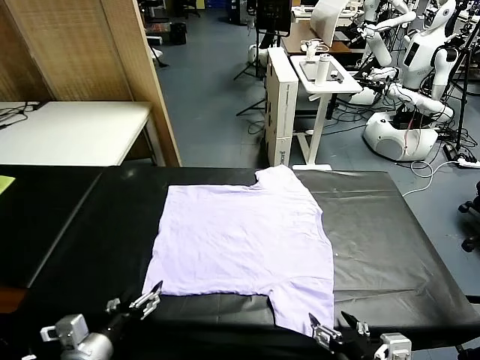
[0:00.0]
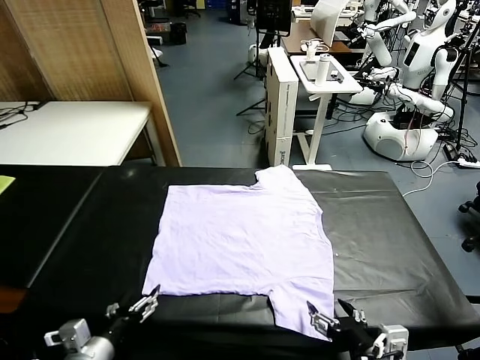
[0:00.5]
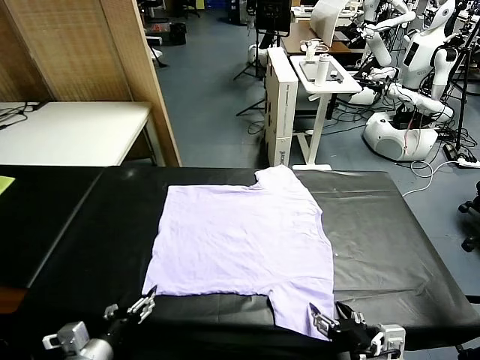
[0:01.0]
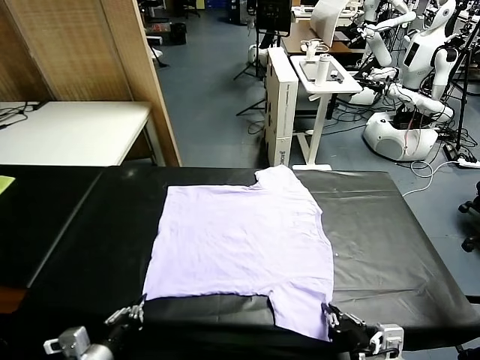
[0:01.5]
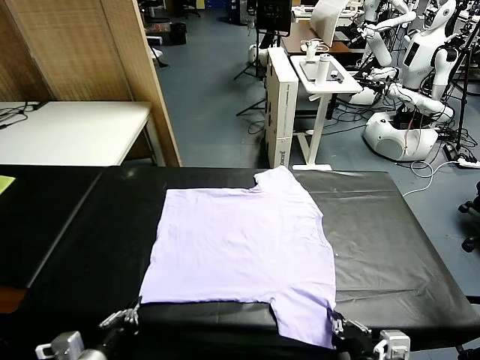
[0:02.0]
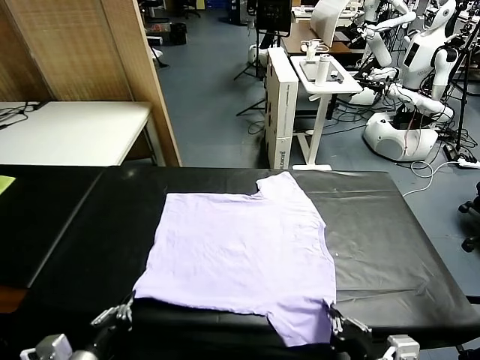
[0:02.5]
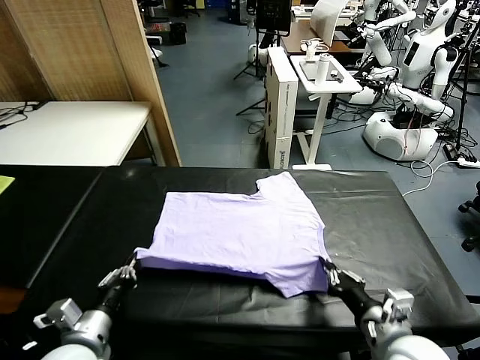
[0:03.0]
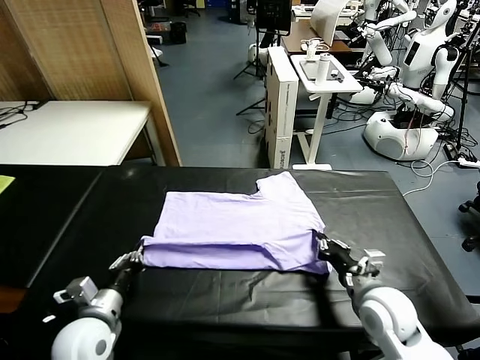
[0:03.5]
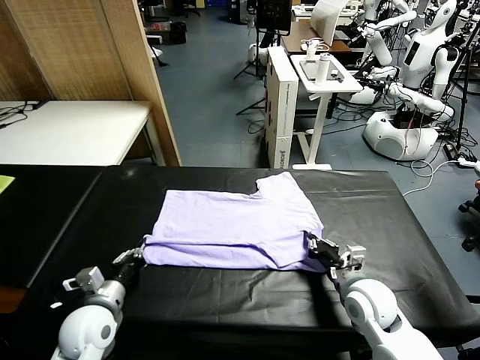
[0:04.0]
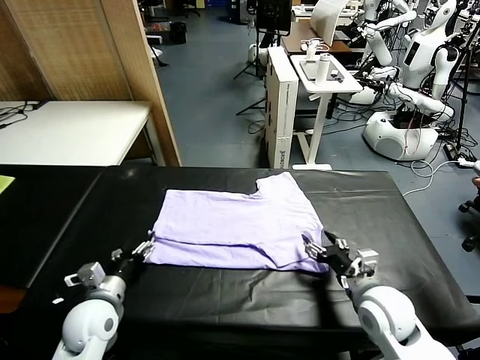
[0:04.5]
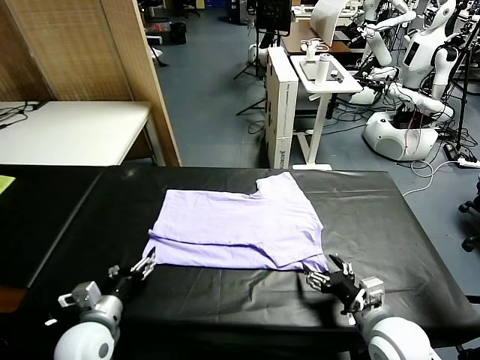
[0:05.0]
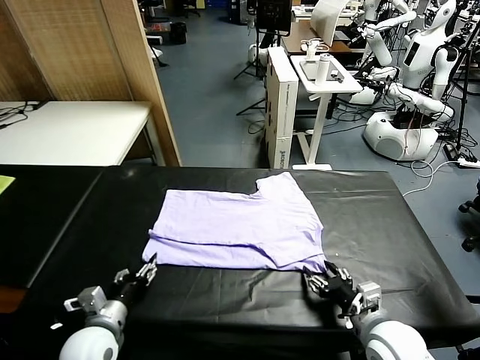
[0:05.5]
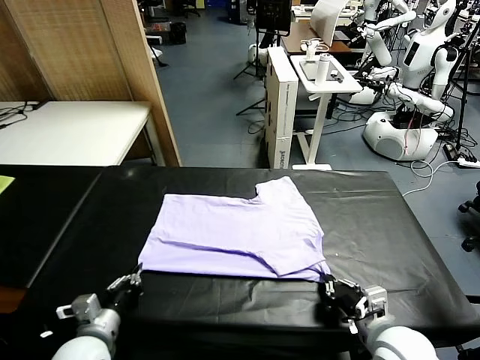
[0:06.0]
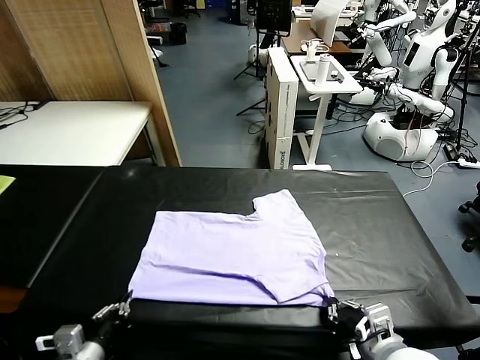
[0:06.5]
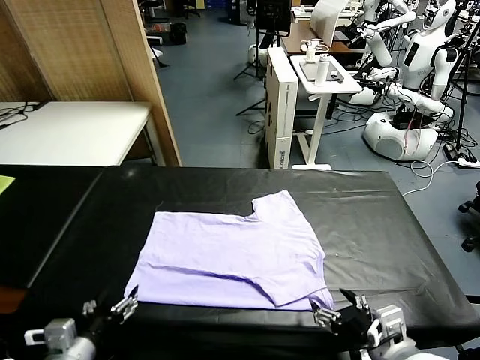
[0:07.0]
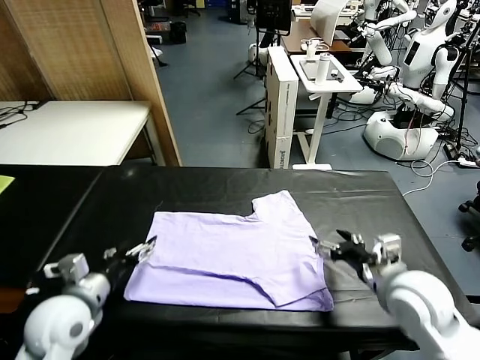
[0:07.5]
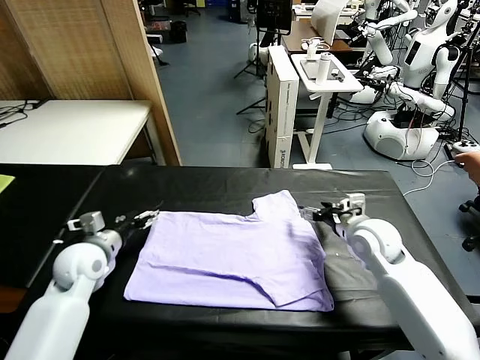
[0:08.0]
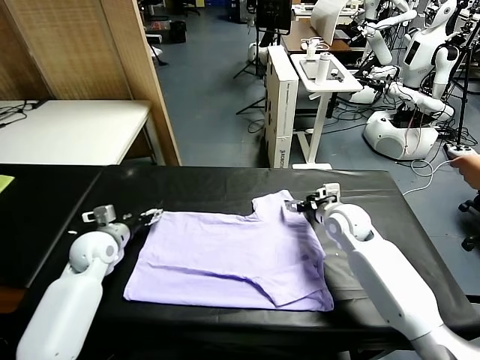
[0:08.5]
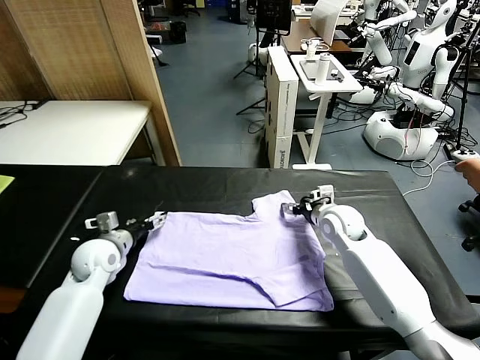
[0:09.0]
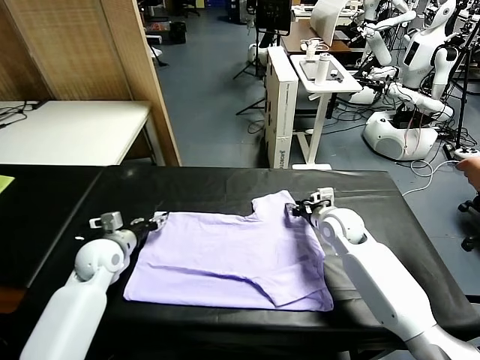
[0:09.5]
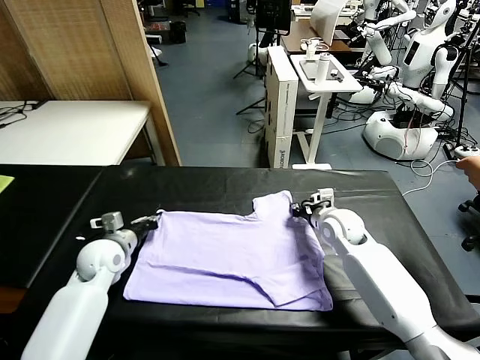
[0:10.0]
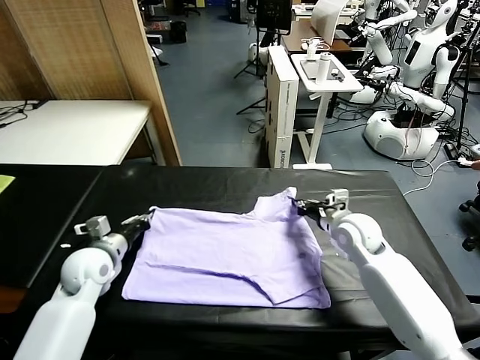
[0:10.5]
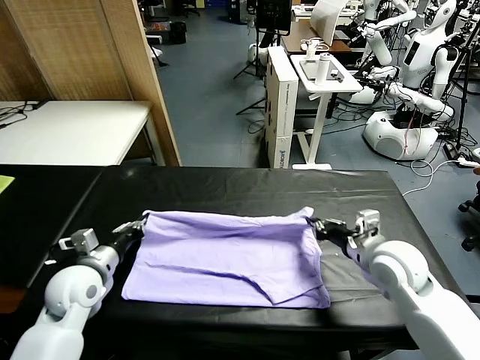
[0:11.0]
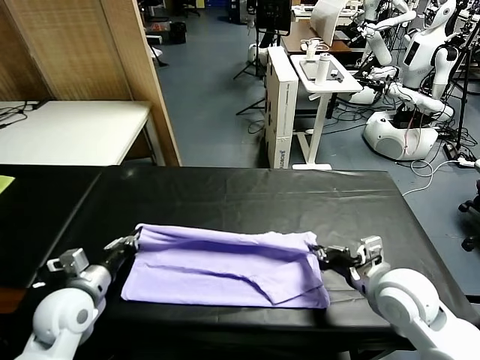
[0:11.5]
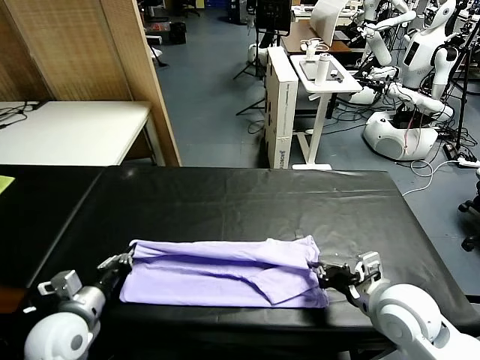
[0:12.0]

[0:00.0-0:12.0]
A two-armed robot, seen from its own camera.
Task of the whole recording: fold and organize the clothes.
Step, 0:00.0 to 0:02.0: use both grippers simultaneously to clamp the lower edge of the clothing fabric.
Step, 0:02.5 to 0:04.0: use both grippers to drag the lower edge of the fabric forward and fold it over the upper edge.
Step, 0:05.0 to 0:06.5: Drag the clothes downward with both gripper.
Step, 0:07.0 to 0:10.0: use both grippers simultaneously to clamp the upper edge of the clothing fabric.
0:02.0 to 0:04.0: Both grippers move forward, approximately 15 cm. The right gripper opens its fingers.
0:04.0 to 0:06.0: The left gripper travels backward by approximately 5 cm, and opens, then closes once more; the right gripper moves backward and upward, roughly 15 cm, and closes its fingers.
0:06.0 to 0:08.0: The grippers both shift forward by approximately 25 cm. The left gripper opens up; the right gripper opens.
0:08.0 to 0:10.0: The left gripper closes up. Meanwhile the right gripper closes up.
0:10.0 to 0:12.0: Both grippers travel together backward, approximately 20 cm.

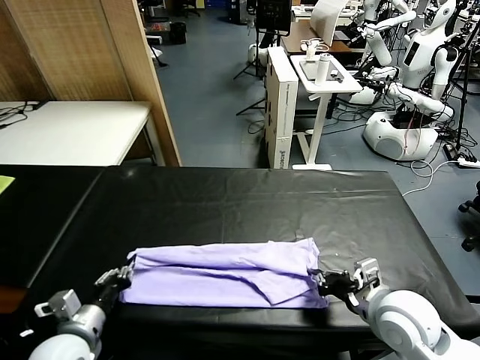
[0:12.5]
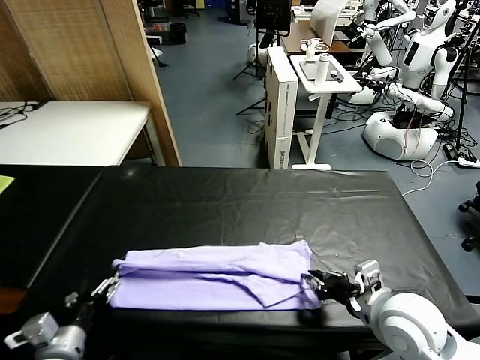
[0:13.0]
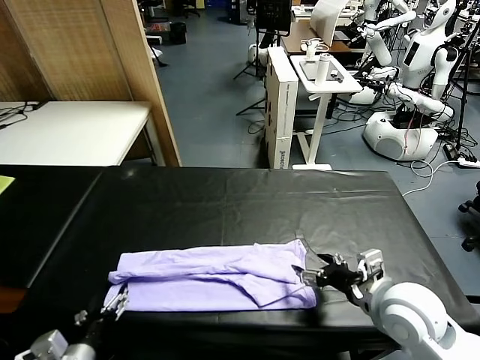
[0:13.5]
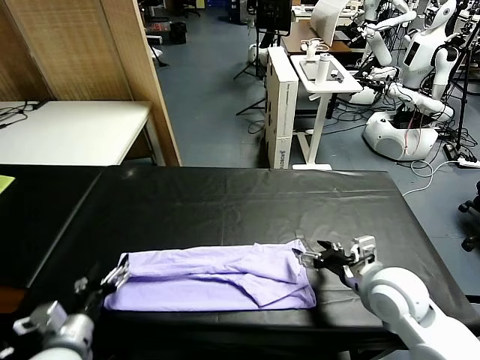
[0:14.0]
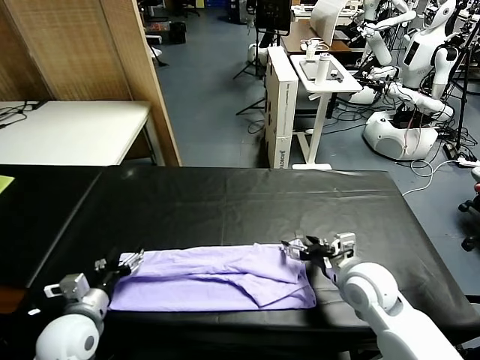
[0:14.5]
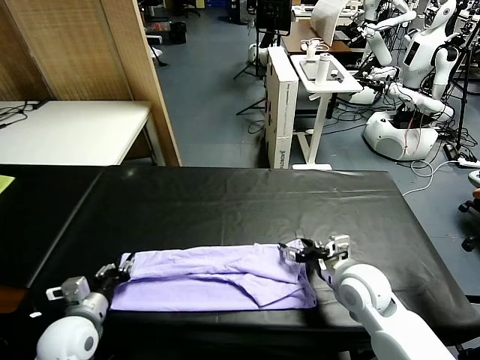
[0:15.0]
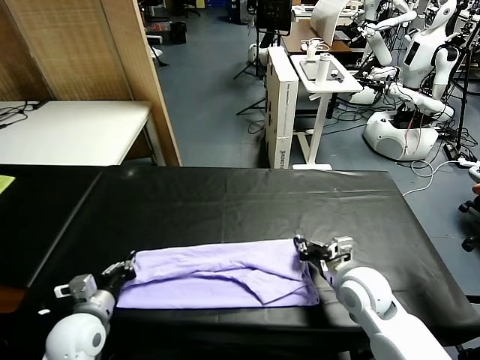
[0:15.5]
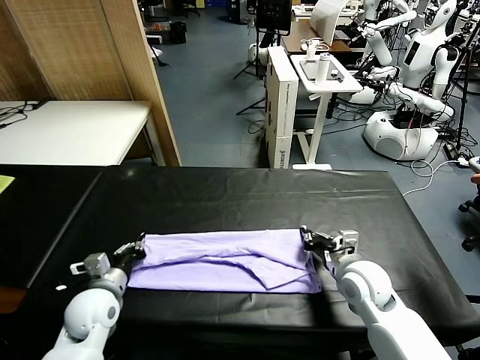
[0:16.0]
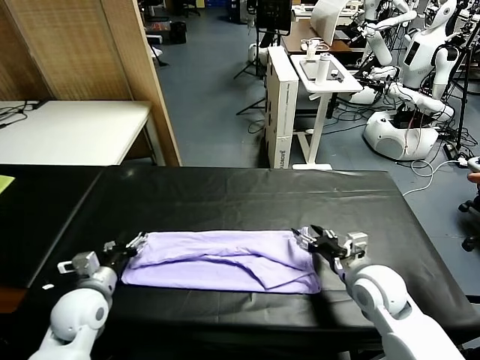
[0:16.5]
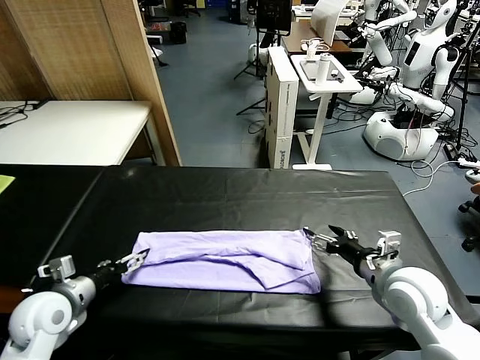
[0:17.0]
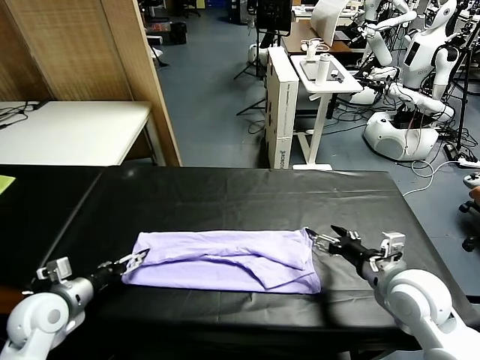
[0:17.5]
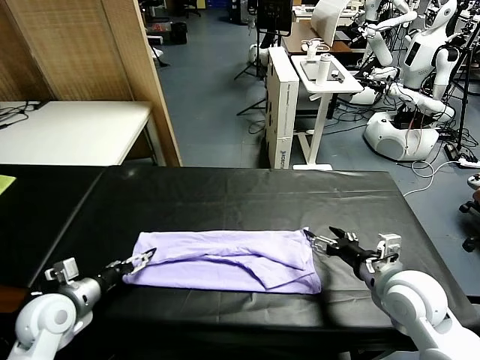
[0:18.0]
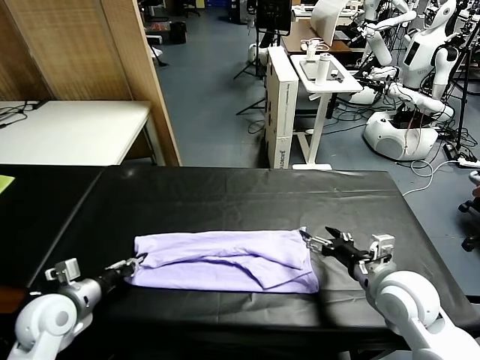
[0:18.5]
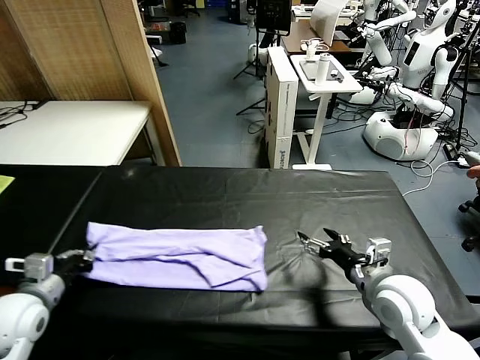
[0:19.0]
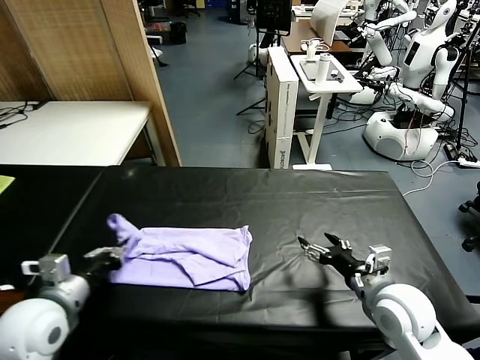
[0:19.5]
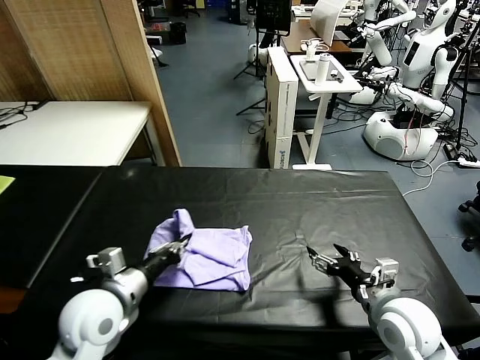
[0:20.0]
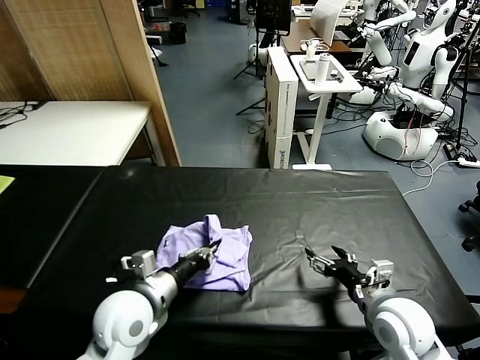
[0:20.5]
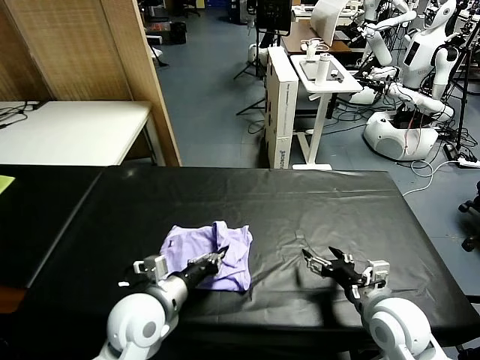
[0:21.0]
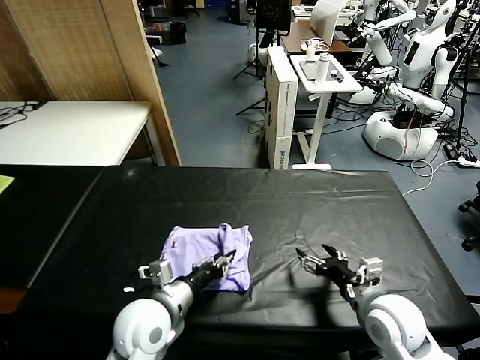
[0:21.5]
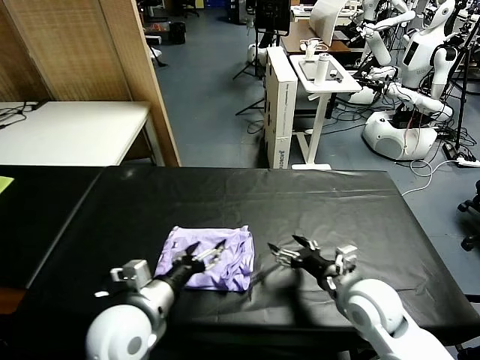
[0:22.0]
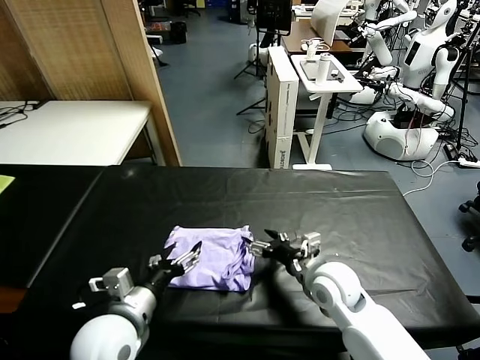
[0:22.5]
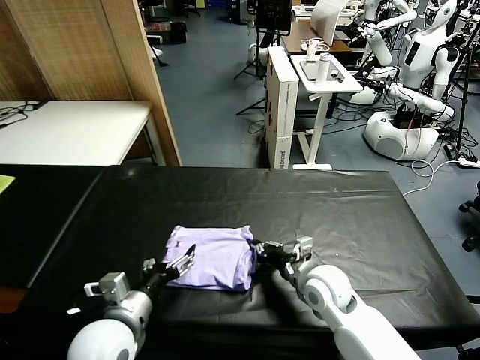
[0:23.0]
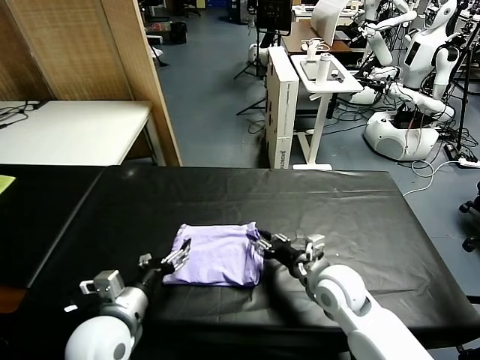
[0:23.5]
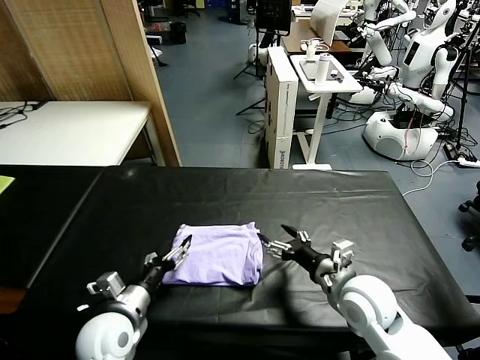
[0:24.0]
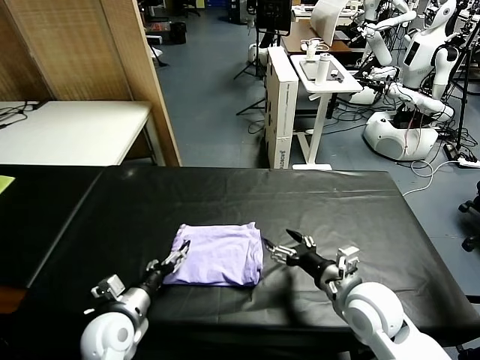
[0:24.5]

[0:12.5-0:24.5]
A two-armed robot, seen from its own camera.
Task of the whole recording: fold and organize the clothes.
Step, 0:13.5 to 0:18.5: use the left gripper to clamp the left edge of the fabric.
Step, 0:19.0 to 0:21.5: use the left gripper to drag the left edge of the fabric to the left and folds it over the right edge.
0:12.5 to 0:14.5: The right gripper moves forward, roughly 10 cm, and opens, while the left gripper opens its fingers.
0:14.5 to 0:16.5: The right gripper closes and opens again, while the left gripper is displaced forward by some 5 cm, and closes, then reopens.
0:16.5 to 0:18.5: The right gripper shifts by approximately 5 cm, while the left gripper ends up about 5 cm from where it was, and closes up.
0:18.5 to 0:20.5: The right gripper changes place by some 5 cm. The left gripper moves to the right, some 15 cm.
0:20.5 to 0:22.5: The left gripper opens. Meanwhile the right gripper travels to the left and forward by some 15 cm.
0:22.5 to 0:24.5: The right gripper is displaced backward and to the right by roughly 10 cm, and closes, then reopens, while the left gripper goes about 10 cm downward and to the left.

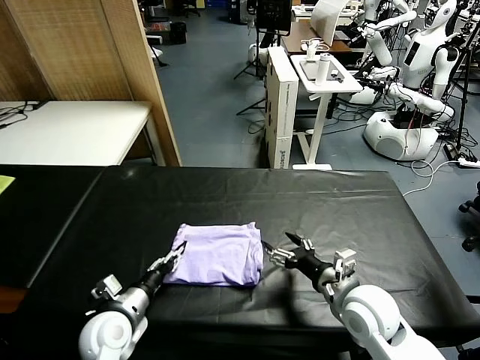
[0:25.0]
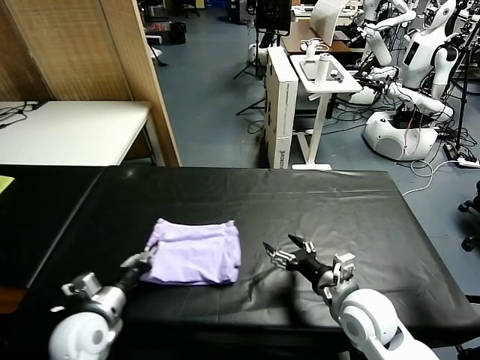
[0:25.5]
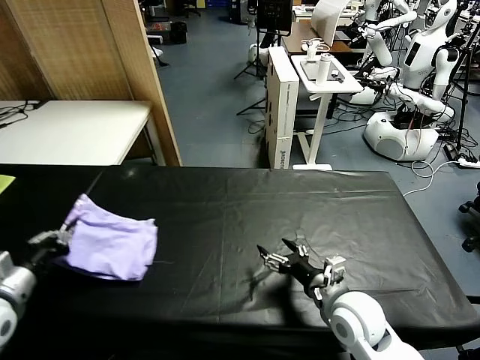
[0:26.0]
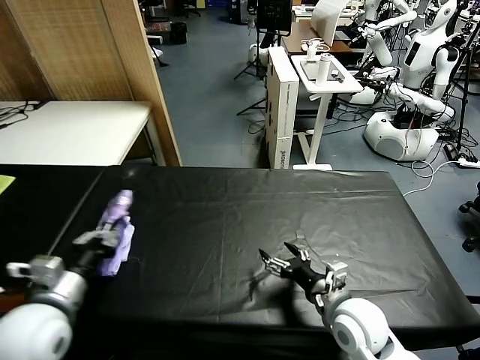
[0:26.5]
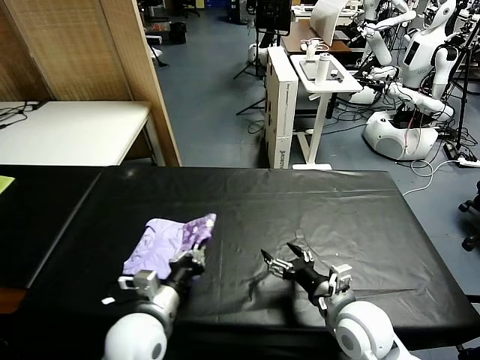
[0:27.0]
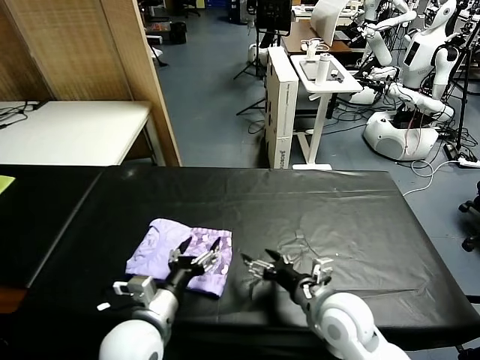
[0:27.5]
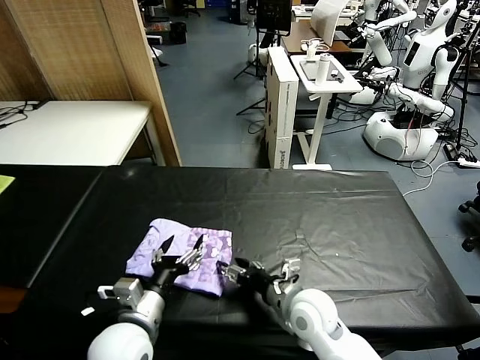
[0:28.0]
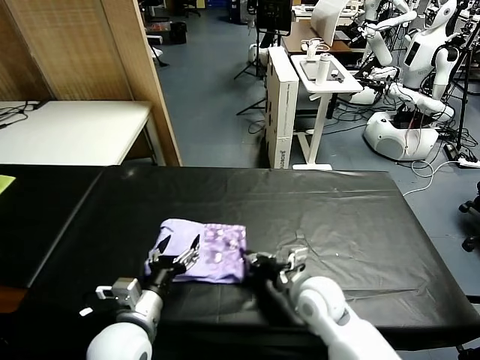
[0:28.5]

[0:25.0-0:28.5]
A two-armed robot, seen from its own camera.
Task of the whole recording: fold and organize the clothes.
Step, 0:25.0 to 0:27.0: Flip the folded clothes over with left gripper.
0:25.0 to 0:27.0: The left gripper shifts about 10 cm to the right and upward, and closes up.
0:27.0 to 0:28.5: The right gripper moves to the left and forward, some 10 cm, and closes up. Meanwhile the left gripper opens up.
